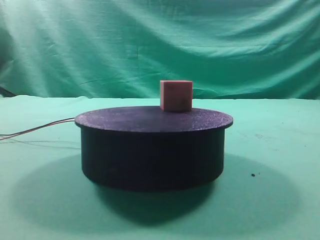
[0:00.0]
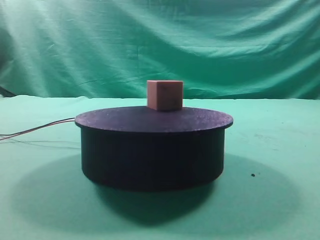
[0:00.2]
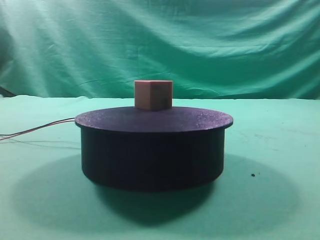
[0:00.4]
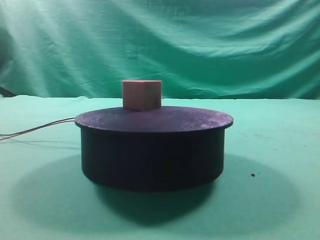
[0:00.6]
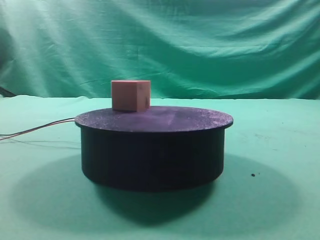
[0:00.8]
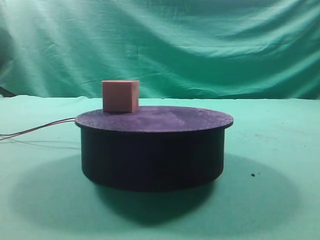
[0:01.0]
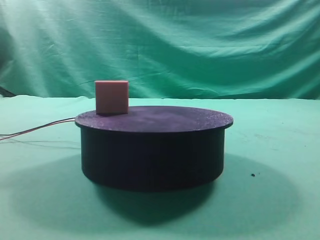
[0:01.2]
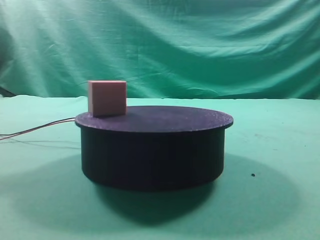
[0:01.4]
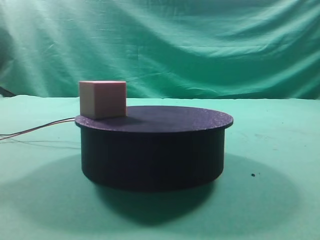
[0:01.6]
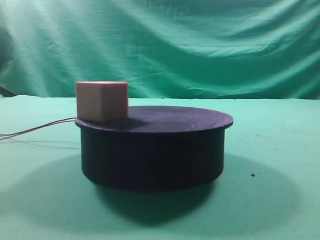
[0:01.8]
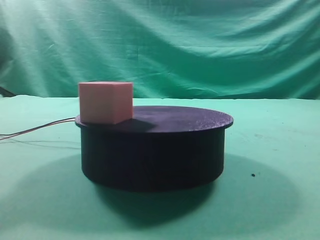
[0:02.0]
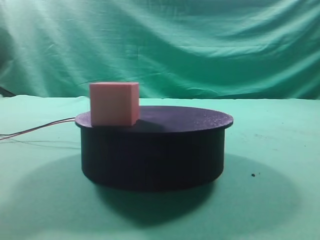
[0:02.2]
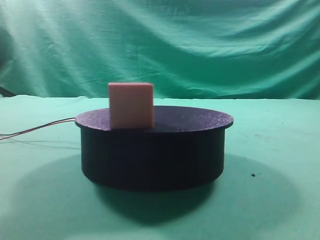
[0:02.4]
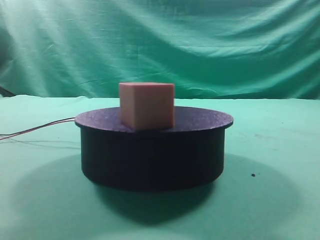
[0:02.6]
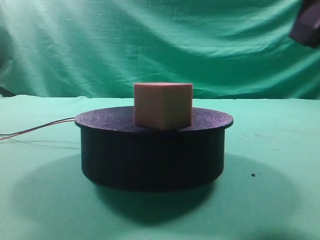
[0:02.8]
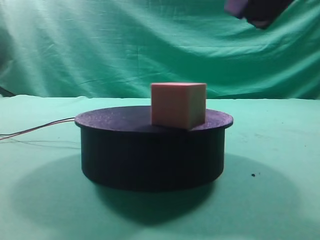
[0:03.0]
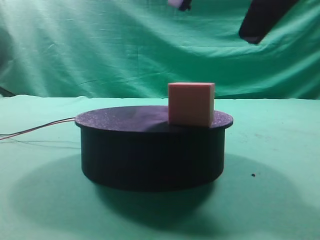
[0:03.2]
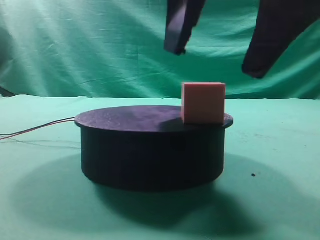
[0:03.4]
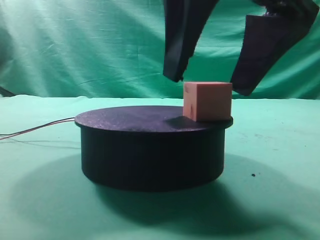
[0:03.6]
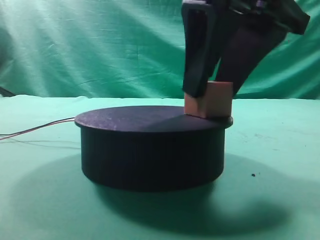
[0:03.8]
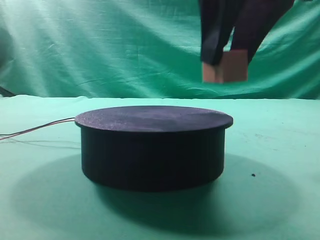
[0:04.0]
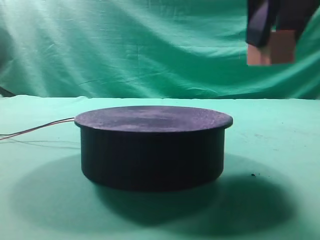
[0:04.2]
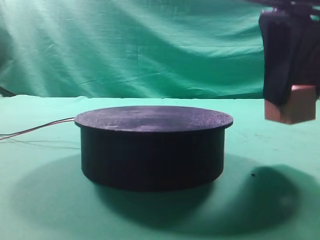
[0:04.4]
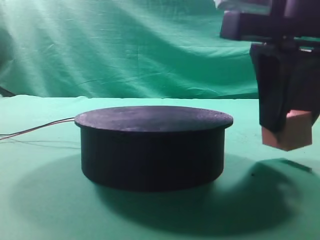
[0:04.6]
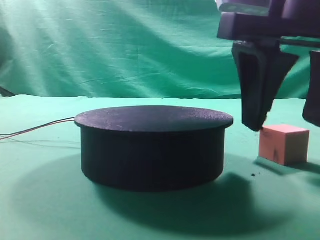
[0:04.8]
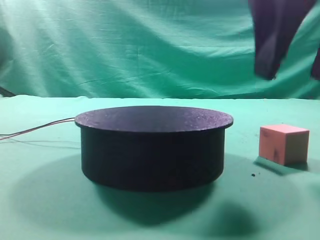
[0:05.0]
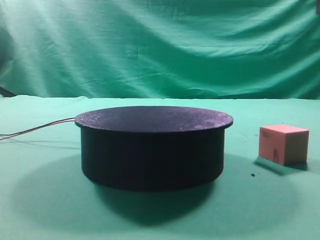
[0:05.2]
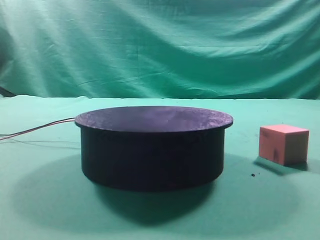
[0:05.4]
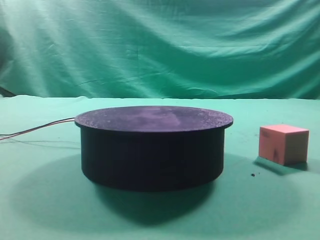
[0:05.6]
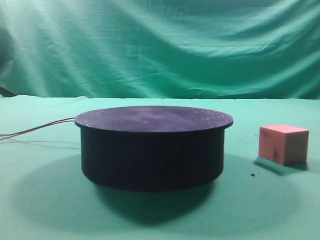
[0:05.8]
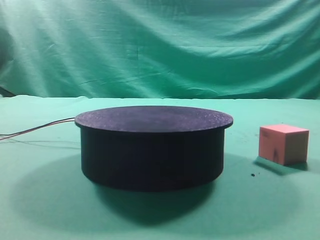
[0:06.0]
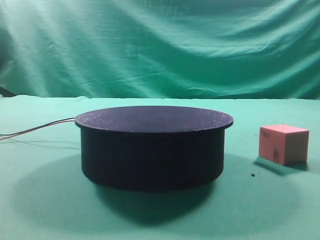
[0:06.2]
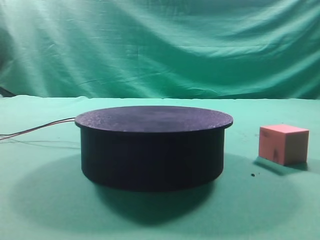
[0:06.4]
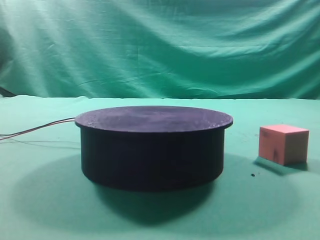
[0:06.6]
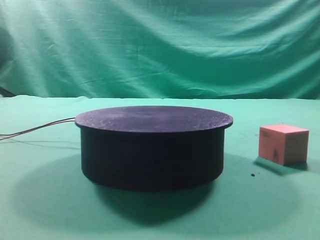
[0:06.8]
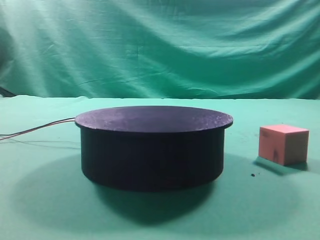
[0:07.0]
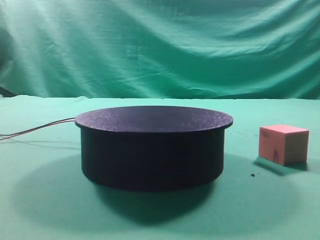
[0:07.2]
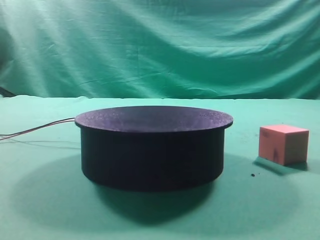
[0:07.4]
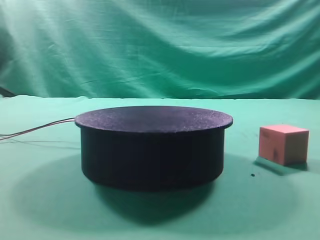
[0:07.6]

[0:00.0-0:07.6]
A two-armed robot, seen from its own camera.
Task of the whole recording: grasp the rotating cube-shaped block on the turntable and place it on the table.
Step, 0:00.0 to 0:04.0: Grasp the rotating cube-shaped block on the turntable.
Step, 0:04.2 to 0:04.8: Place the cube on the desk.
